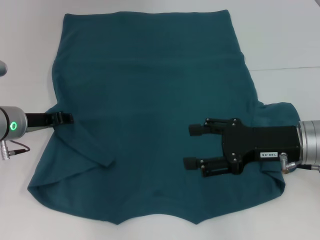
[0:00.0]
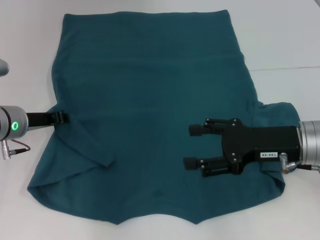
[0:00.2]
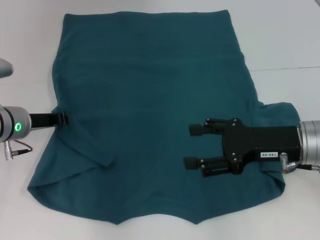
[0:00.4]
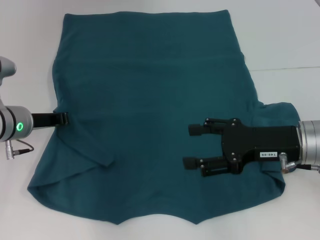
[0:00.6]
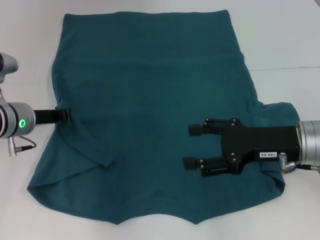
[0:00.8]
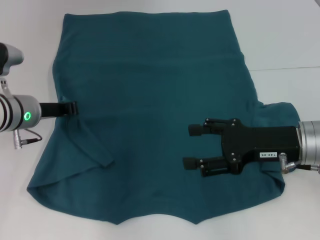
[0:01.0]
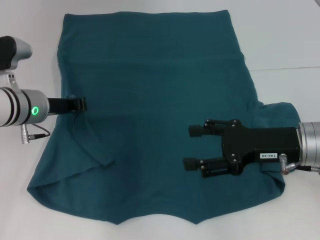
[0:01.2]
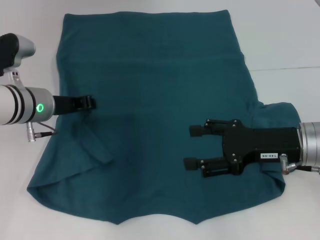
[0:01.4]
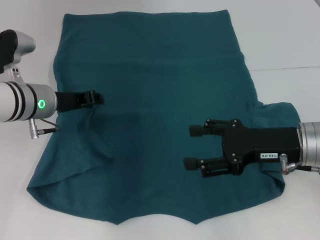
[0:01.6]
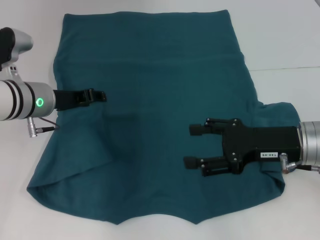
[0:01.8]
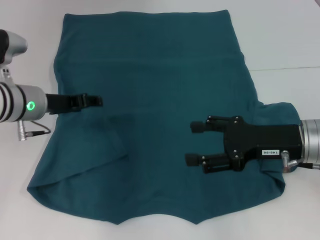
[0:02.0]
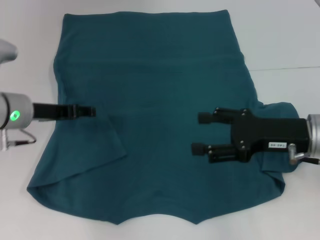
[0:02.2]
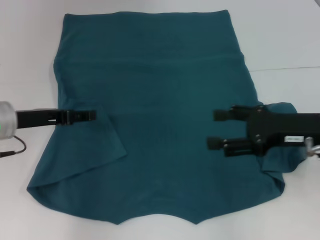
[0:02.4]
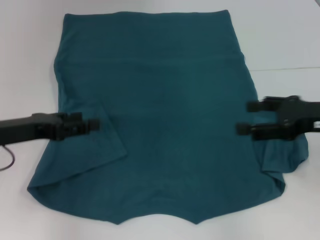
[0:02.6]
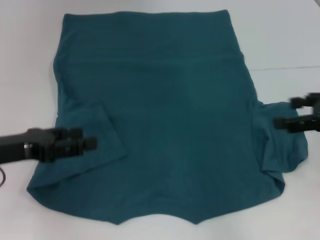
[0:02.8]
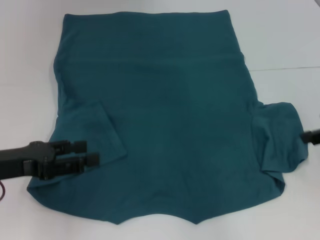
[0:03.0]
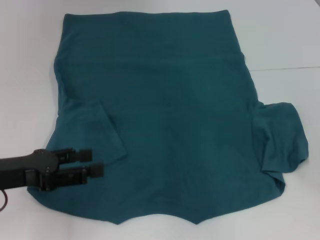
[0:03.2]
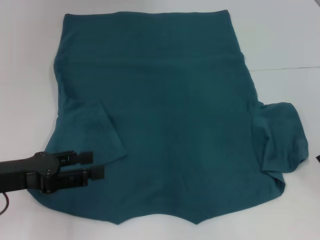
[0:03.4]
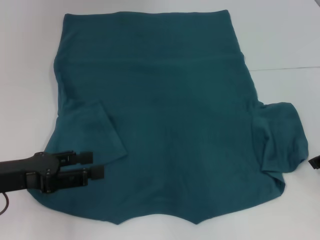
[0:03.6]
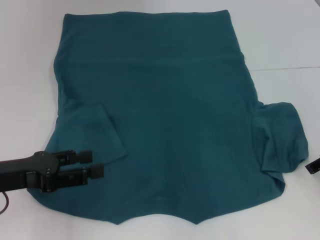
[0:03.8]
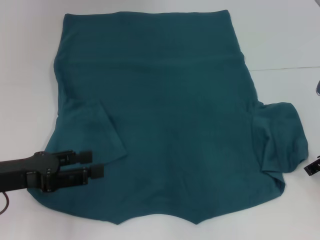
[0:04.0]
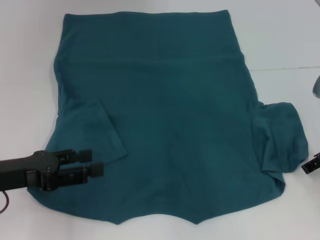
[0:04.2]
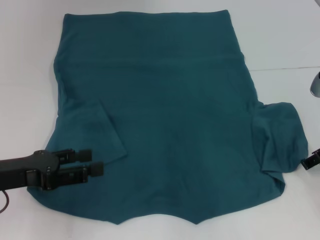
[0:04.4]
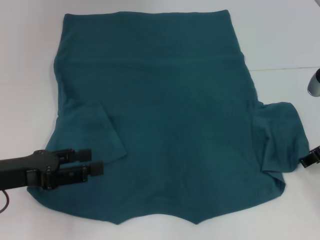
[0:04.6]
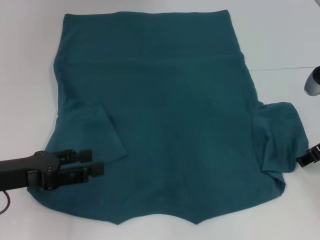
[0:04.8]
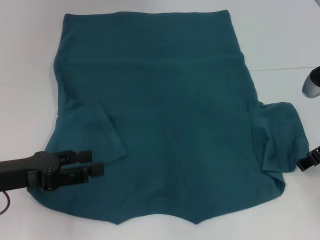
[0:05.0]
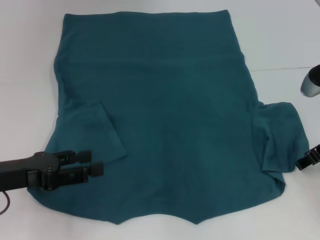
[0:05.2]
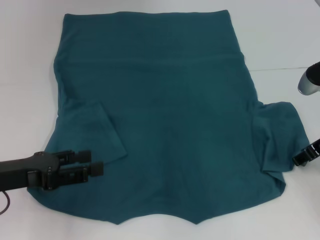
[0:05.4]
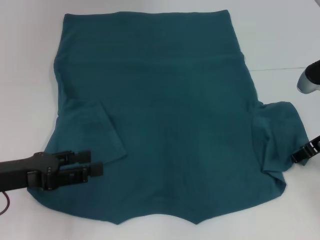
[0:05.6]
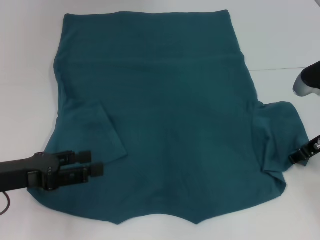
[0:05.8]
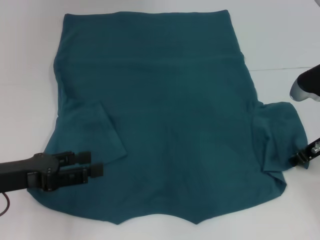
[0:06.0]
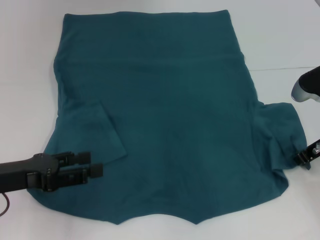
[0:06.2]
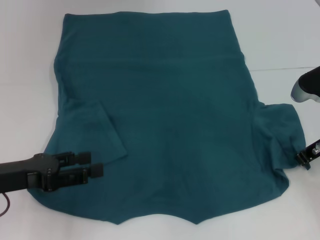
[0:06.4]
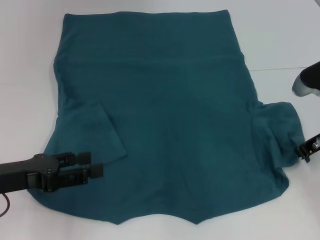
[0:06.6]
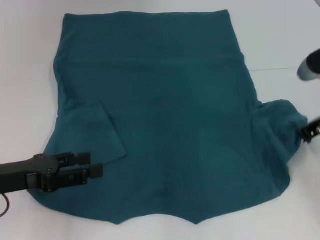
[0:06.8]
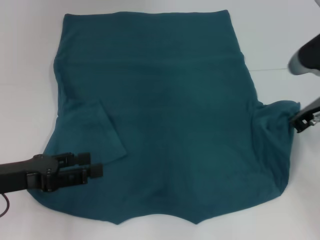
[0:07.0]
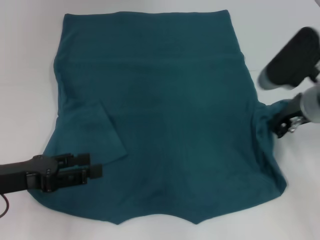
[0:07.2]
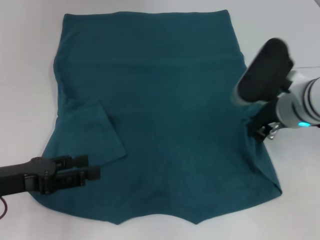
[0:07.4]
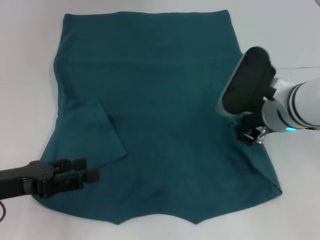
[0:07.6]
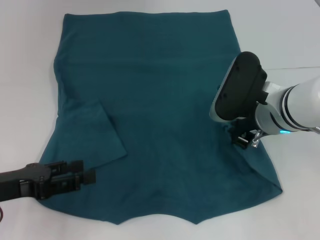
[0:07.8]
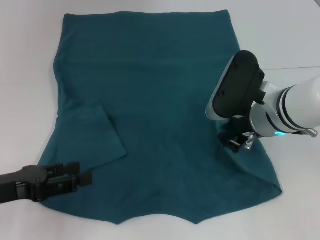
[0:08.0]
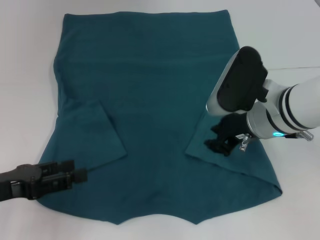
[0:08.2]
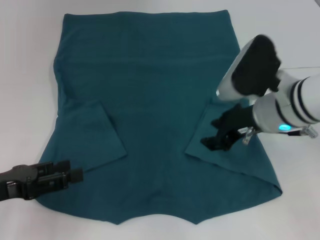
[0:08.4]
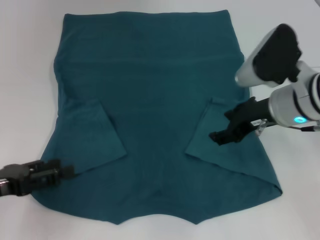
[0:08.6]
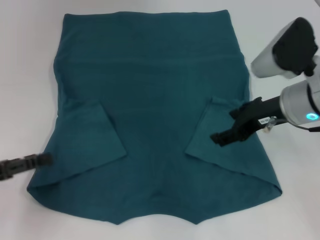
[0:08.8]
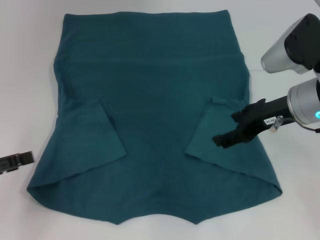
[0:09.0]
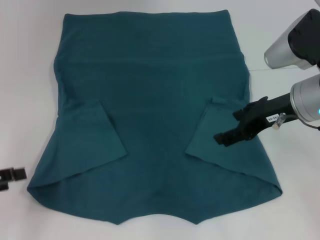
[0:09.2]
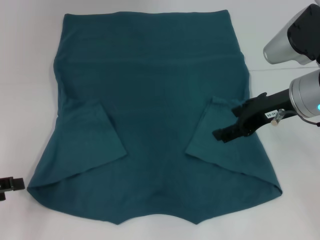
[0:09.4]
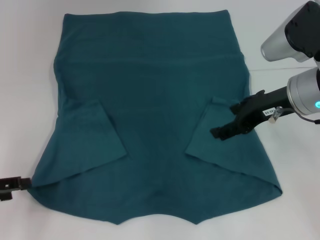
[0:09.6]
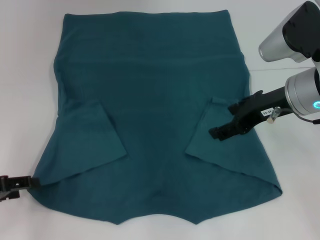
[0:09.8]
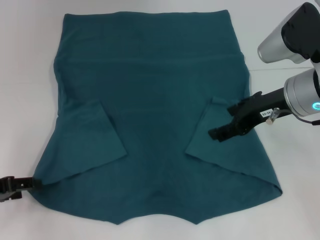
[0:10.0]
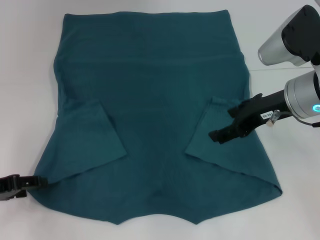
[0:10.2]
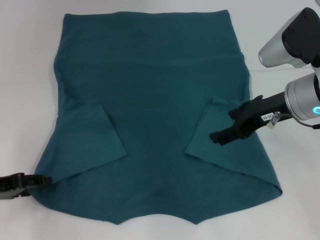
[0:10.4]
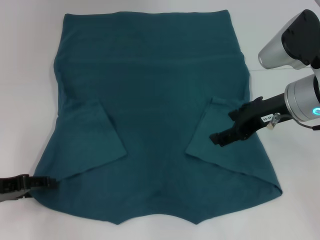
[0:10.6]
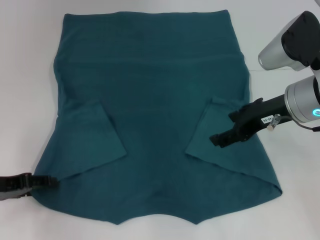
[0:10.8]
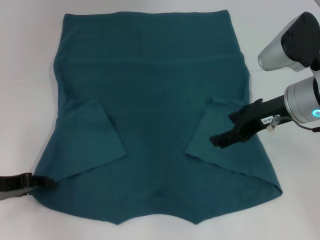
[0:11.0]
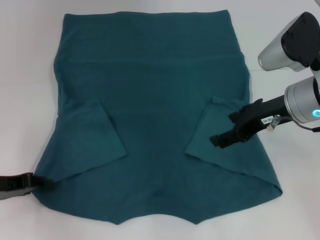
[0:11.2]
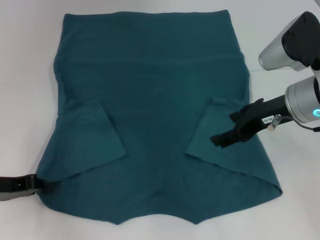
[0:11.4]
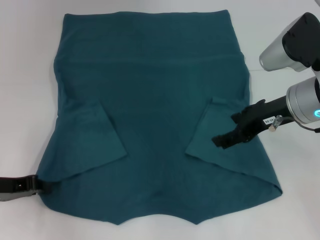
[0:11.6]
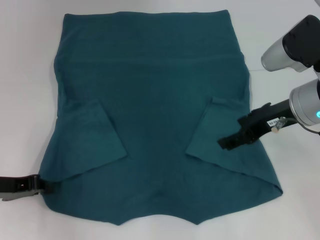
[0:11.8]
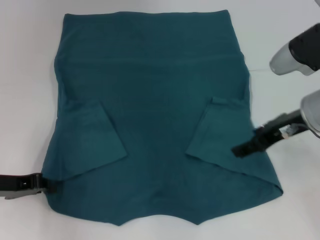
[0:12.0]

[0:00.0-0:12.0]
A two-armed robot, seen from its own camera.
Step, 0:00.0 to 0:02.4: Fold the bottom left sleeve with your left hand.
Step, 0:02.6 to 0:08.6: Fold the bottom right sleeve to the right.
0:00.0 to 0:01.6: The left gripper changes place by some 5 cm, and closes.
0:01.6 to 0:03.0: The left gripper goes approximately 15 cm backward and to the left, and opens up. The right gripper travels to the right and upward by some 15 cm.
0:03.0 to 0:04.4: The right gripper moves downward, approximately 10 cm.
0:04.4 to 0:06.0: The grippers move only a little.
0:06.0 to 0:07.6: The right gripper travels to the left by some 10 cm, and closes.
0:07.6 to 0:09.0: The left gripper goes roughly 5 cm to the left, while the right gripper opens up.
0:09.0 to 0:10.4: The left gripper moves about 5 cm.
0:10.4 to 0:12.0: The left gripper closes.

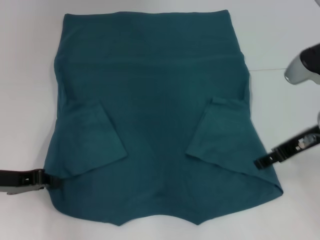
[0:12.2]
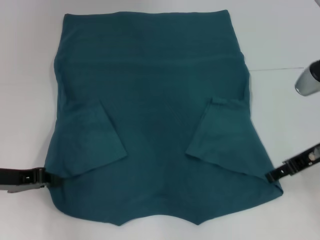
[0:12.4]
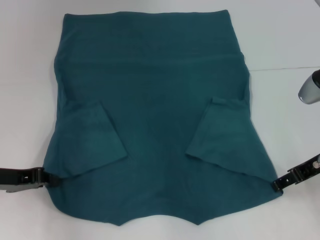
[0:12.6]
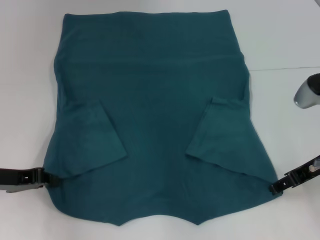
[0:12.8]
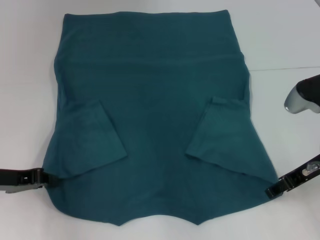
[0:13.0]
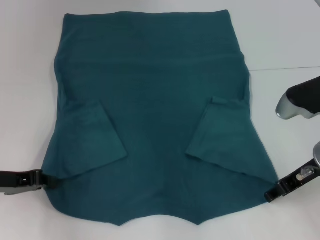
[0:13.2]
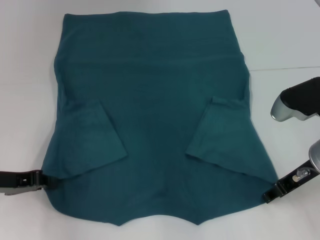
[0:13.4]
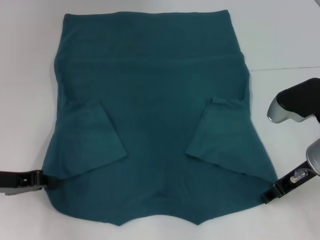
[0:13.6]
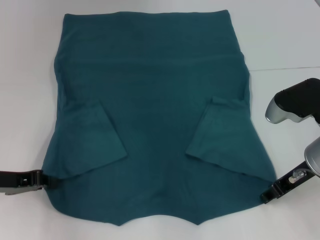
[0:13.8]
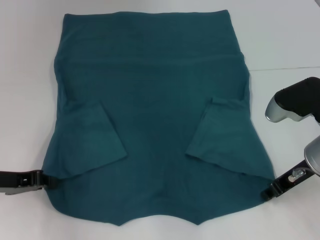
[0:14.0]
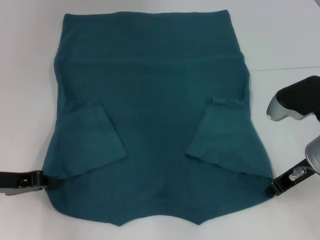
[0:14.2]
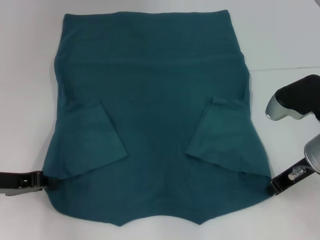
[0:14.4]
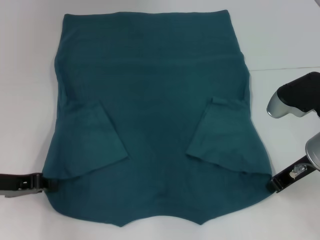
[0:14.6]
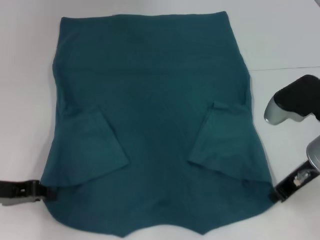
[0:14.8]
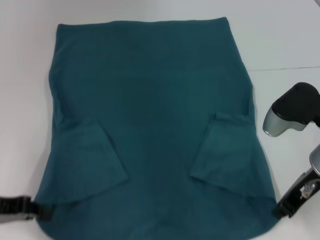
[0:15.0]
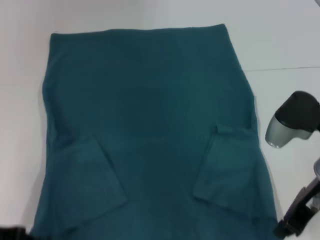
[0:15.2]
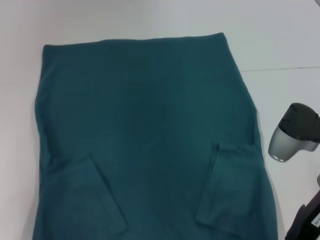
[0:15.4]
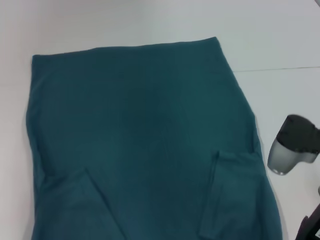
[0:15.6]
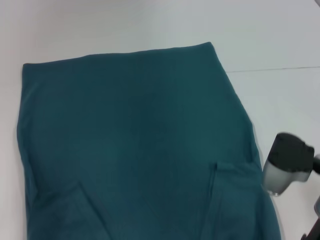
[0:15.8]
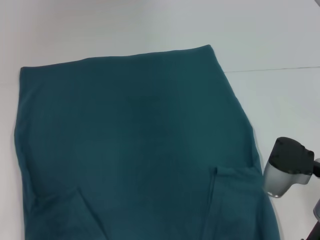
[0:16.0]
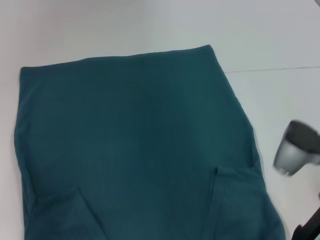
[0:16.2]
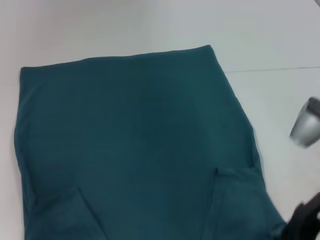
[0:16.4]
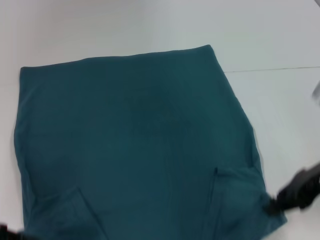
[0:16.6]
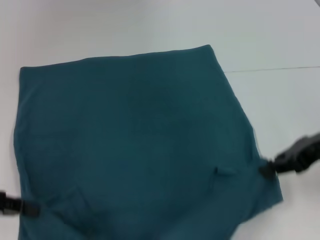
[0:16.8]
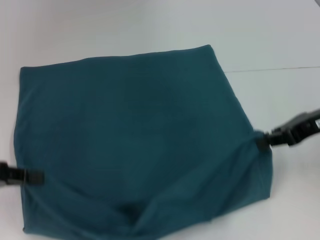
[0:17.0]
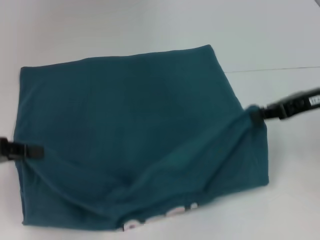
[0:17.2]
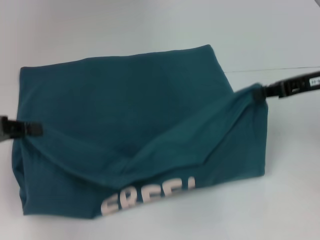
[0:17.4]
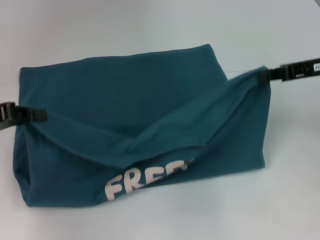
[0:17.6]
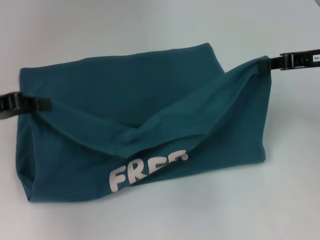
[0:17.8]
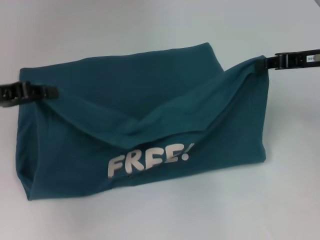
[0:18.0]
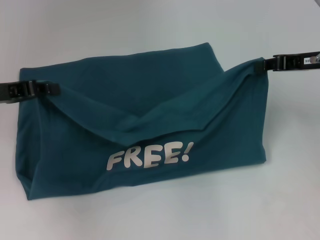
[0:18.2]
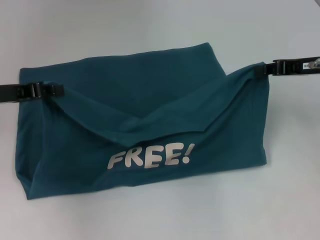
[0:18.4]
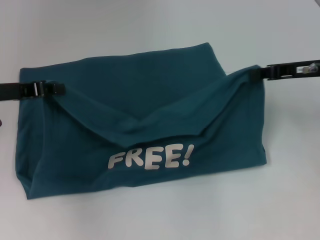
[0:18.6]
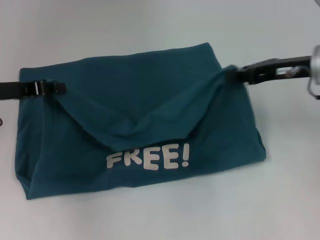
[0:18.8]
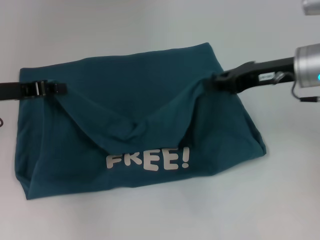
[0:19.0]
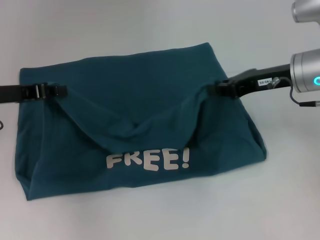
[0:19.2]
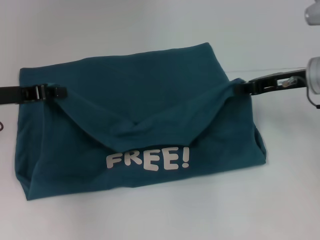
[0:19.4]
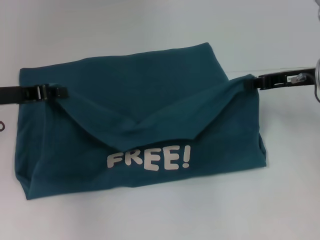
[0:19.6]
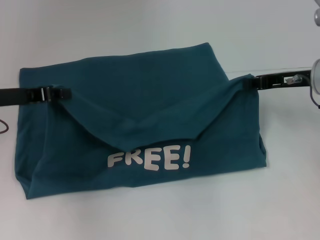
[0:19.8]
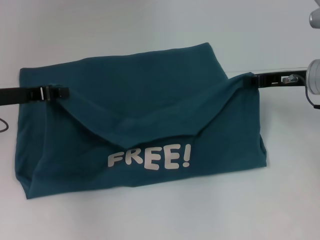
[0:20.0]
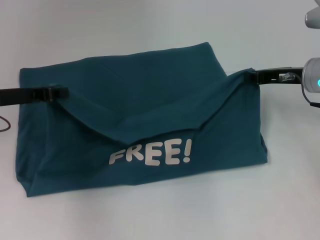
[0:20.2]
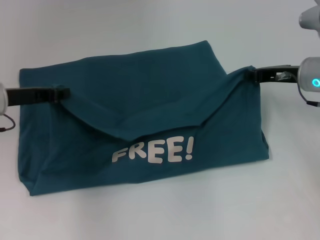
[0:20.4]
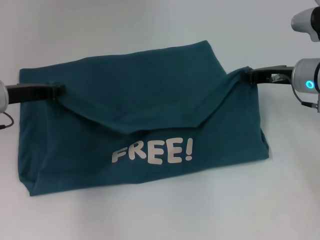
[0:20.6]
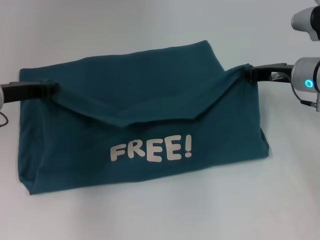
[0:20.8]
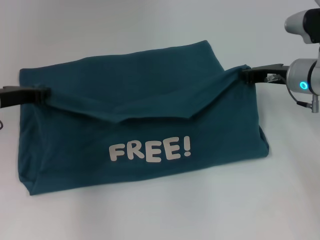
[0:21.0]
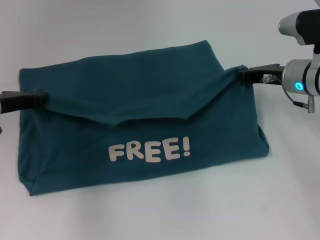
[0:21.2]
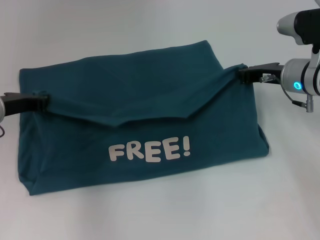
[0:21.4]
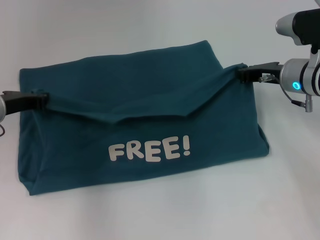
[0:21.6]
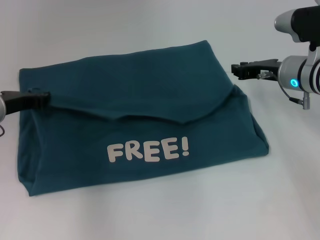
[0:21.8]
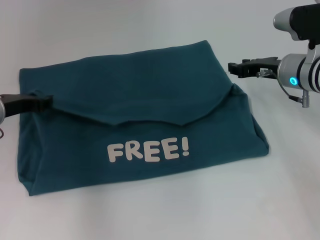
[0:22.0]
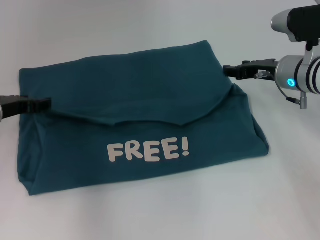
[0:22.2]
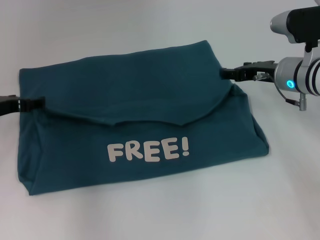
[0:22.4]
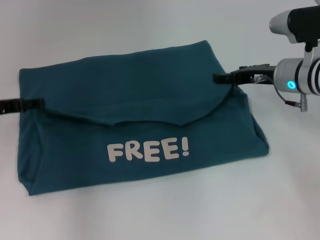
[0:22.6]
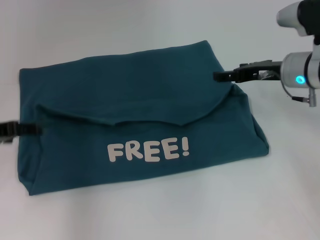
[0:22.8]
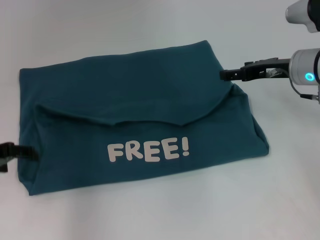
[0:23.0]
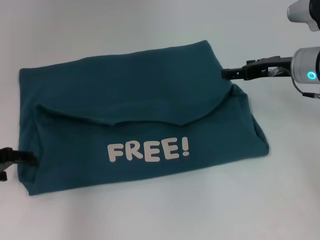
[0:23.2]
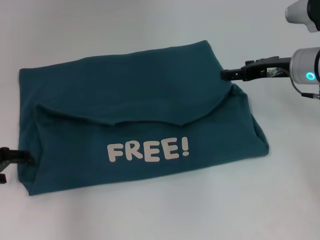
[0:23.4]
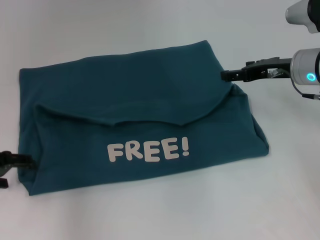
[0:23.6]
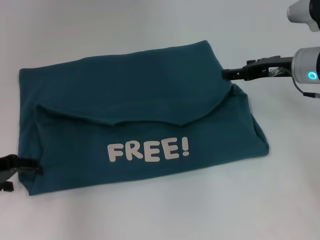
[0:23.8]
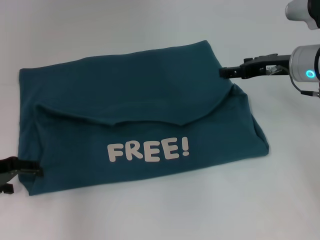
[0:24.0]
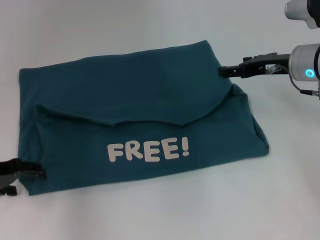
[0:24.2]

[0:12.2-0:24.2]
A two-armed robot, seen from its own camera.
Step, 0:12.2 to 0:14.2: Grab the bottom right corner with your right hand.
Step, 0:14.4 to 0:22.4: Fold the clothes to the left.
Step, 0:14.4 to 0:22.4: Fold the clothes to the right.
0:12.2 to 0:13.8: The grippers make only small movements.
0:13.8 to 0:15.2: The right gripper closes up, while the left gripper shifts by roughly 5 cm.
0:16.6 to 0:18.2: Both grippers travel together forward, some 10 cm.
0:18.2 to 0:19.8: The right gripper shifts by about 5 cm.
0:21.2 to 0:22.6: The left gripper opens up, while the right gripper opens.
0:22.6 to 0:24.2: The left gripper moves backward, some 5 cm.
